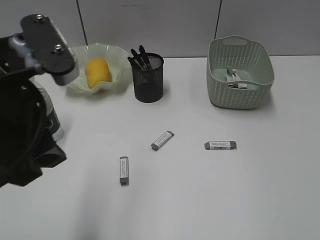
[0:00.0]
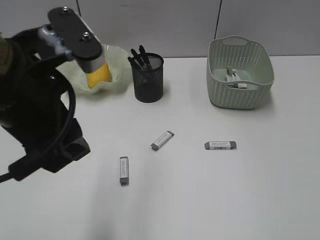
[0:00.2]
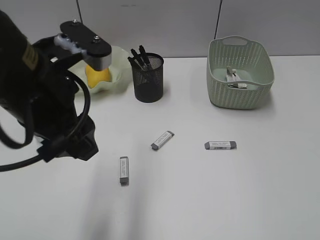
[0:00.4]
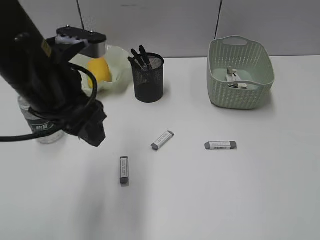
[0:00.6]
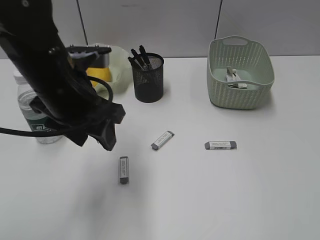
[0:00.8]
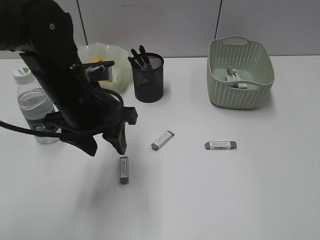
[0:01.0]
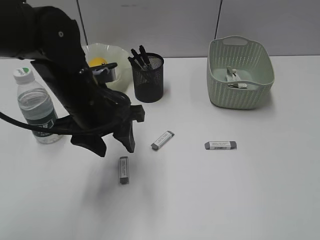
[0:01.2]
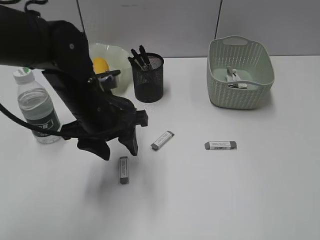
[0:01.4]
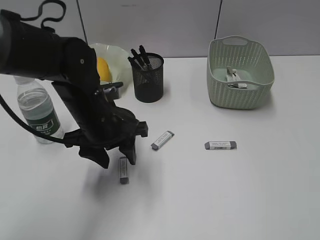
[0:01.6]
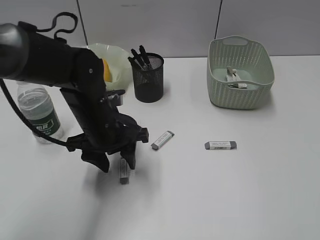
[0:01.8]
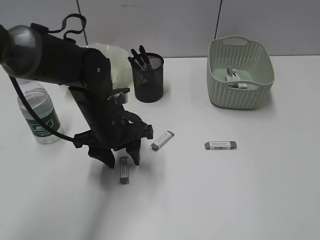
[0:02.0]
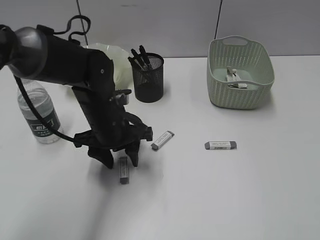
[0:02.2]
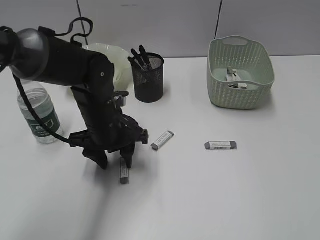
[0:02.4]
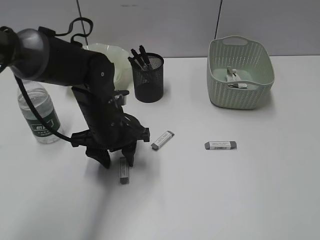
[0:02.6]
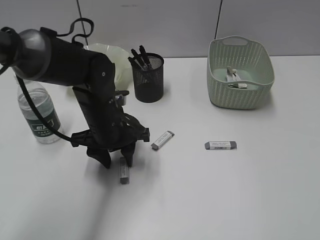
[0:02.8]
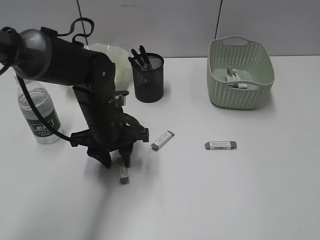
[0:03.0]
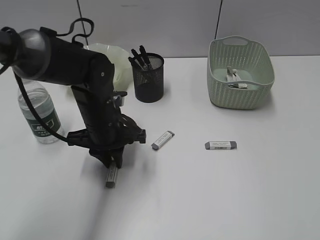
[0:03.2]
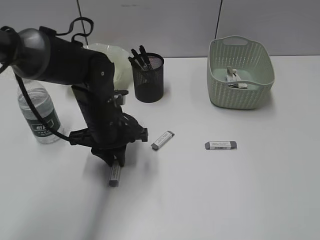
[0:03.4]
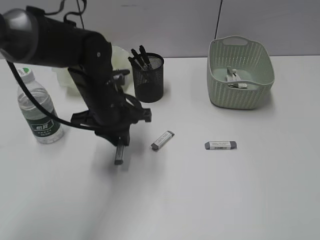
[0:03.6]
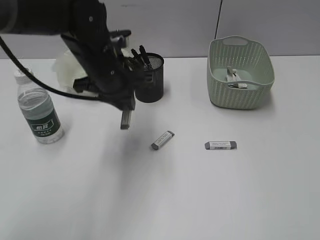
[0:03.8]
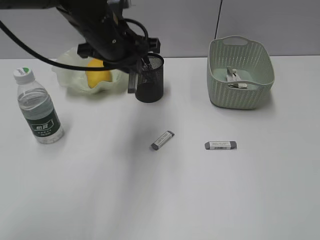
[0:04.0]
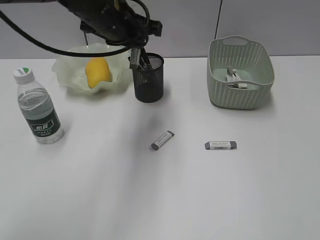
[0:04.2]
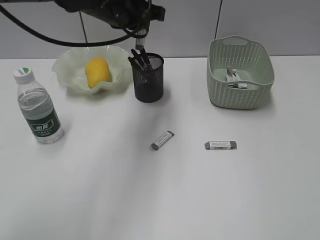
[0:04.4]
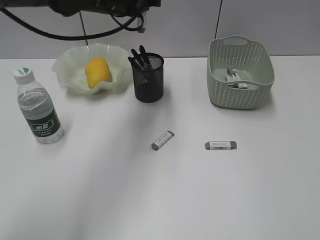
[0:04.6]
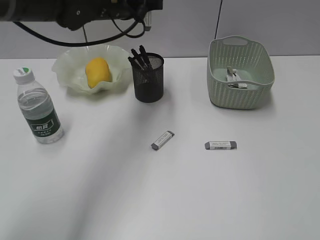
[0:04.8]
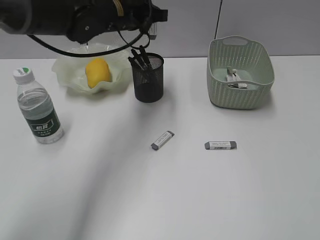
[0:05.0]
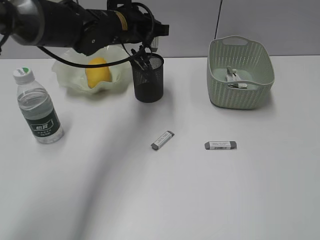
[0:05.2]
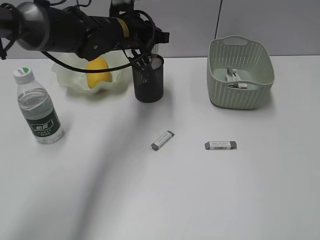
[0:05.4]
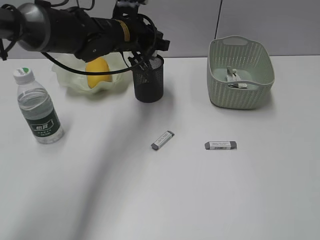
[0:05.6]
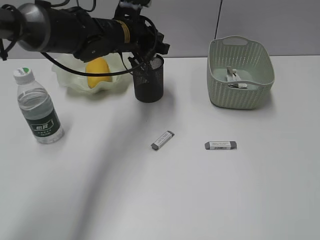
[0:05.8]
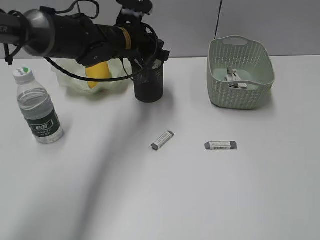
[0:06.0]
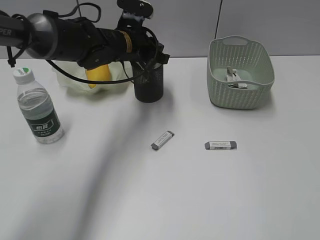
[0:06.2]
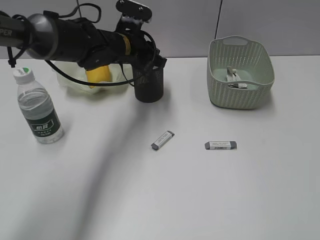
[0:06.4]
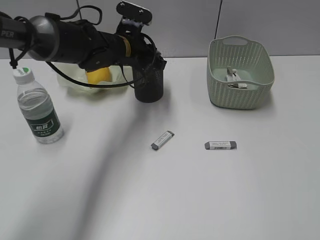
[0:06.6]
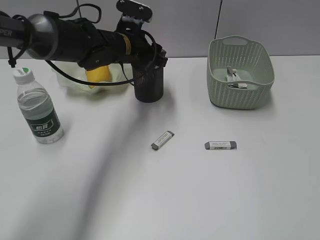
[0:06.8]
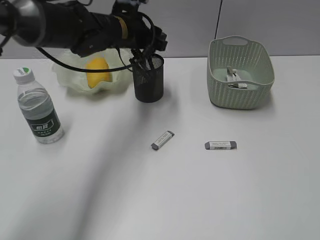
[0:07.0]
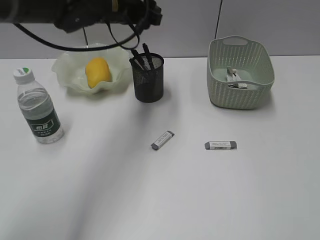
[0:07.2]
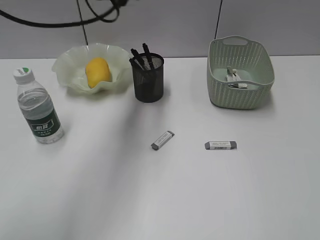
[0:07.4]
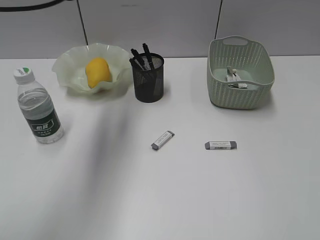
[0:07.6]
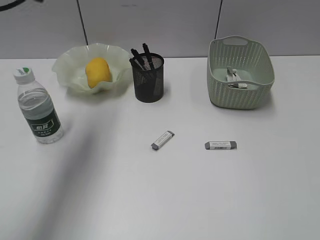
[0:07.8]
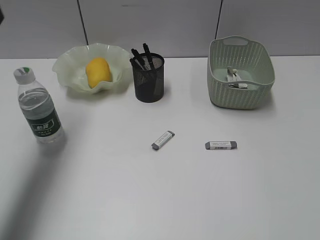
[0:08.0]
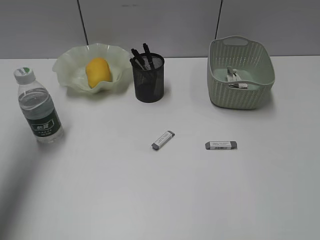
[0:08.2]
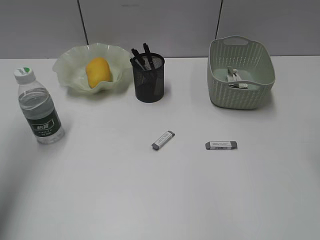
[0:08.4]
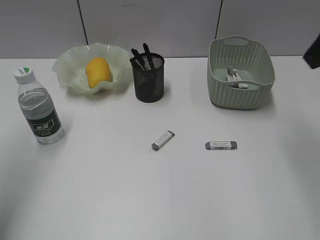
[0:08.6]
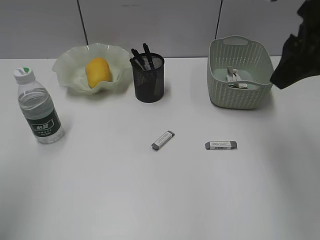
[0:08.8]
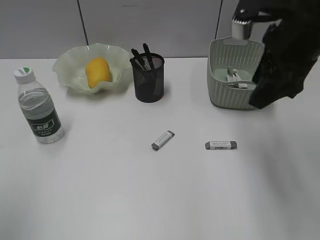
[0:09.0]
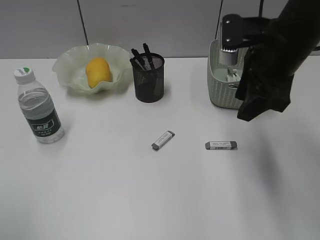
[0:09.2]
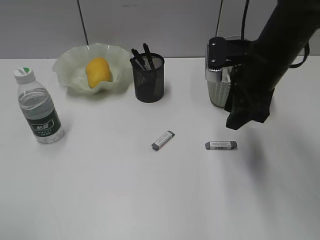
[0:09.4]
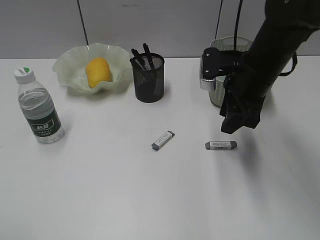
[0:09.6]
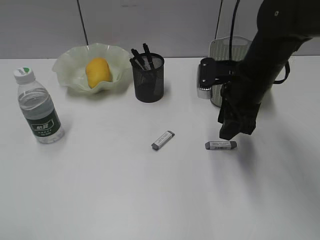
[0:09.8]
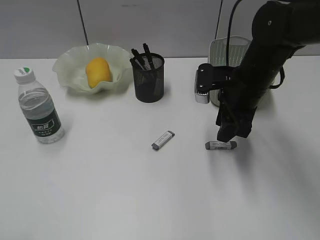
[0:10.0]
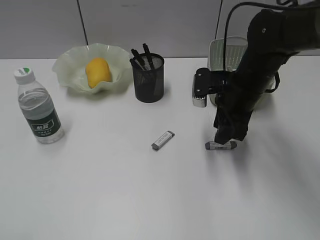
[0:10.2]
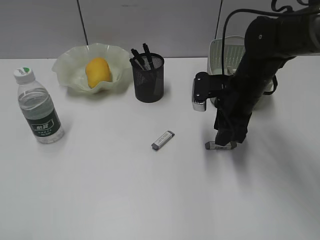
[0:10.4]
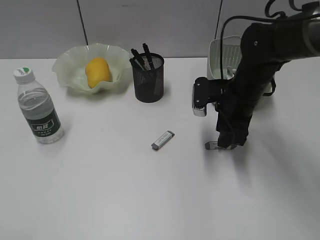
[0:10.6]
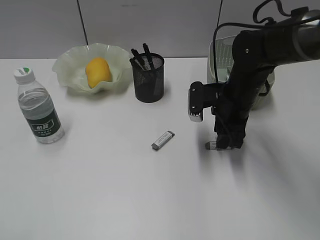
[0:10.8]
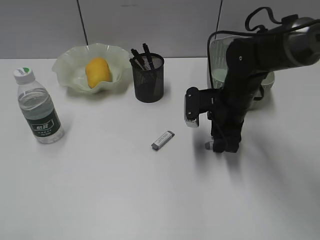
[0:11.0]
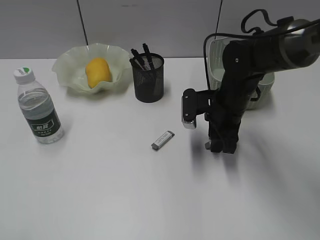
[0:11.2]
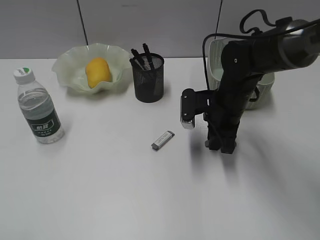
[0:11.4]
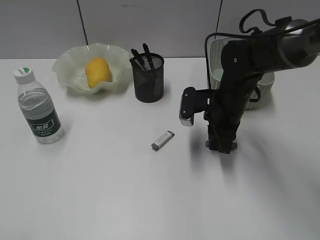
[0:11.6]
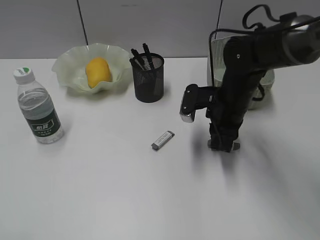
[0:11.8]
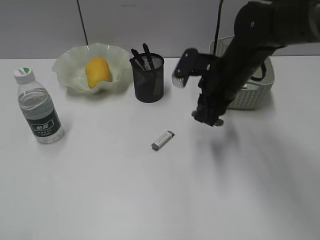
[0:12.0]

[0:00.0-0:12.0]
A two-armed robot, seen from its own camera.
Step, 0:00.0 to 0:03.2: Grasp the eraser with left gripper.
Step, 0:03.4 to 0:07.0: Place the eraser in pen holder with left gripper.
Step, 0:07.2 to 0:11.6: Grasp the eraser with right gripper.
0:00.0 to 0:01.6: The left gripper travels downward and forward by some 20 cm.
0:01.6 to 0:03.0: The grippers make only small movements.
0:03.0 to 0:04.4: The left gripper heads upward and forward, covering approximately 20 cm.
0:04.4 to 0:06.0: The left gripper heads downward, covering about 10 cm.
0:06.0 to 0:07.6: The left gripper moves upward and to the left, approximately 20 cm, and opens.
0:07.6 to 0:09.0: The left gripper goes approximately 30 cm backward and to the left; the right gripper is displaced forward and to the left by about 30 cm.
0:09.0 to 0:10.4: The right gripper is displaced downward by about 15 cm. The left gripper travels backward and downward by some 10 cm.
0:10.4 to 0:12.0: The right gripper moves roughly 5 cm, and closes.

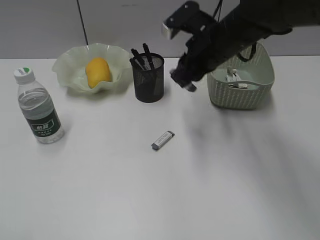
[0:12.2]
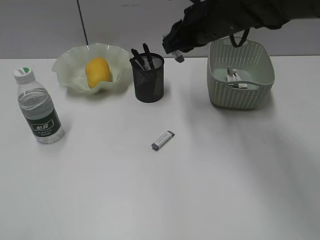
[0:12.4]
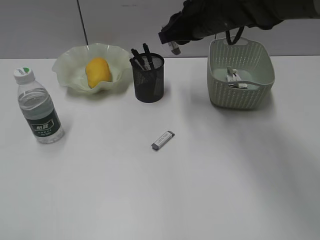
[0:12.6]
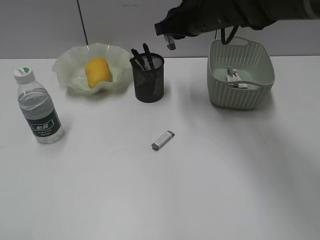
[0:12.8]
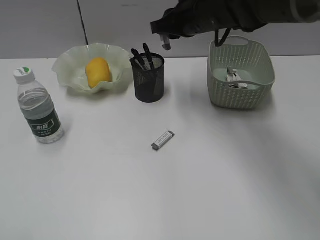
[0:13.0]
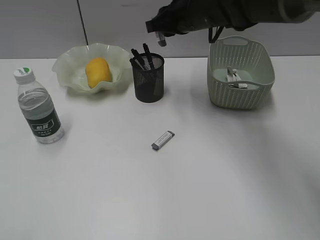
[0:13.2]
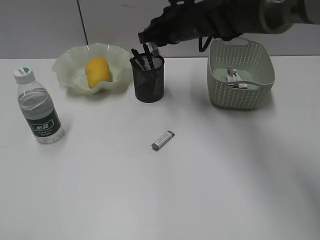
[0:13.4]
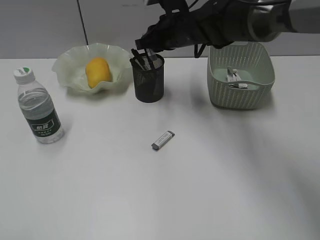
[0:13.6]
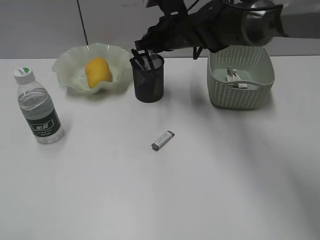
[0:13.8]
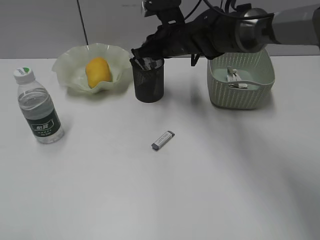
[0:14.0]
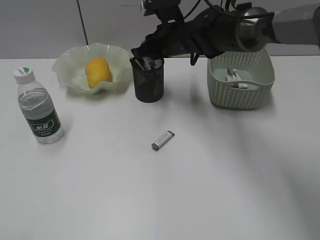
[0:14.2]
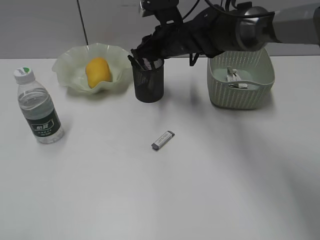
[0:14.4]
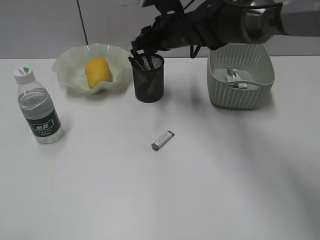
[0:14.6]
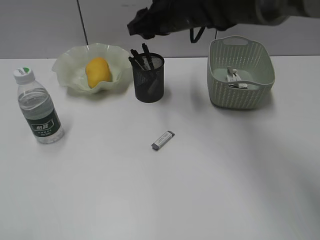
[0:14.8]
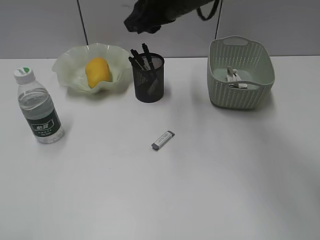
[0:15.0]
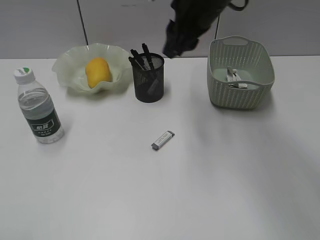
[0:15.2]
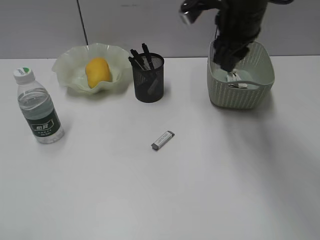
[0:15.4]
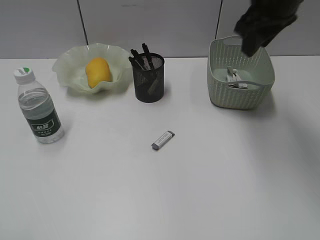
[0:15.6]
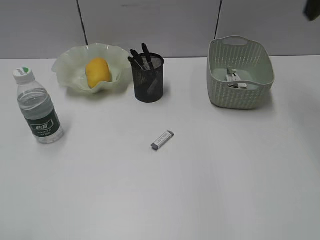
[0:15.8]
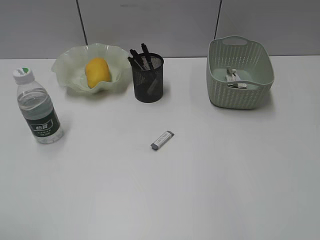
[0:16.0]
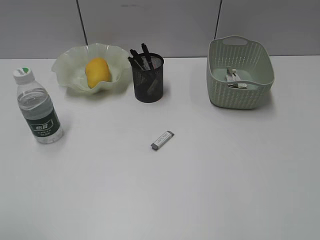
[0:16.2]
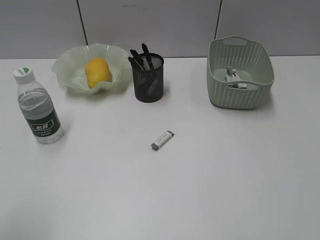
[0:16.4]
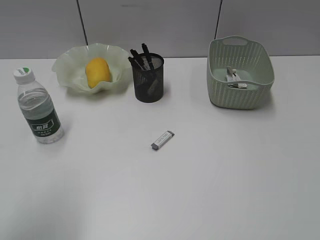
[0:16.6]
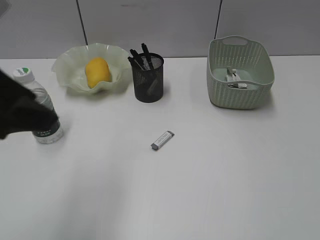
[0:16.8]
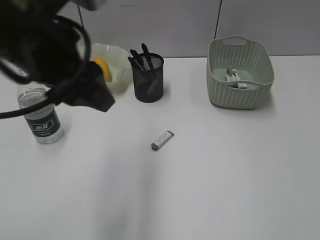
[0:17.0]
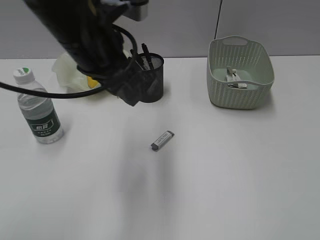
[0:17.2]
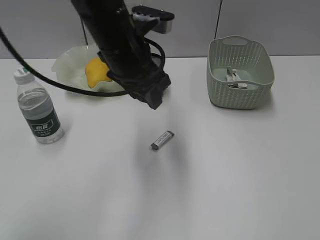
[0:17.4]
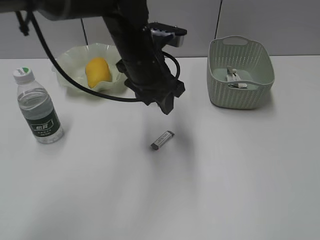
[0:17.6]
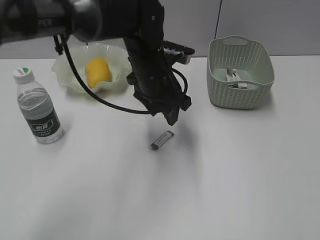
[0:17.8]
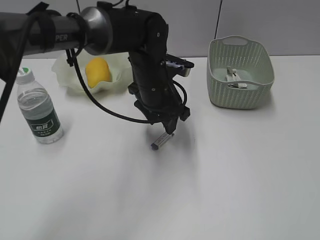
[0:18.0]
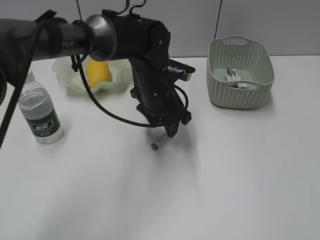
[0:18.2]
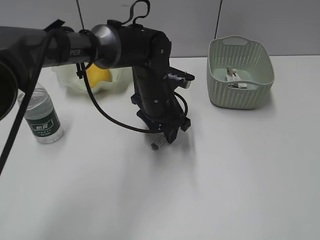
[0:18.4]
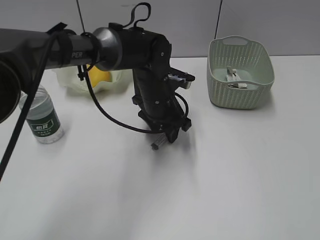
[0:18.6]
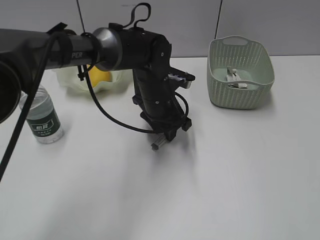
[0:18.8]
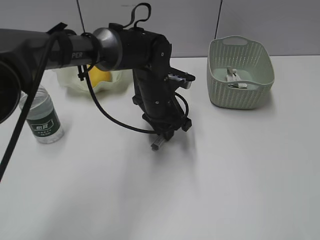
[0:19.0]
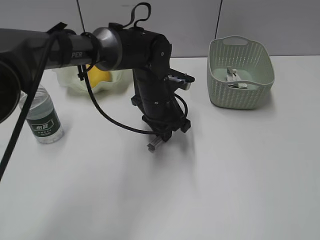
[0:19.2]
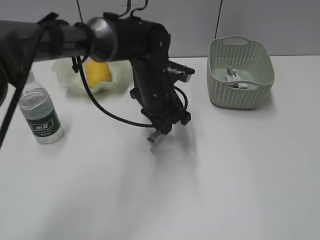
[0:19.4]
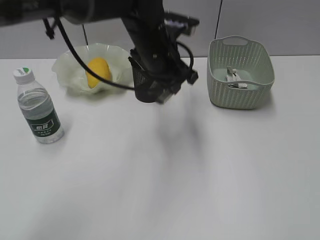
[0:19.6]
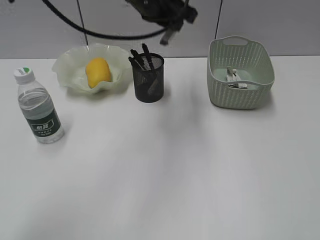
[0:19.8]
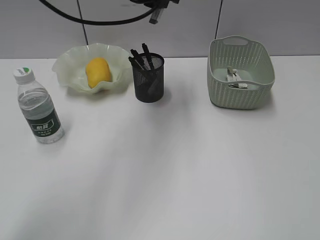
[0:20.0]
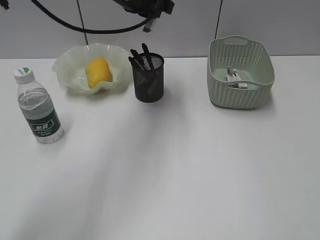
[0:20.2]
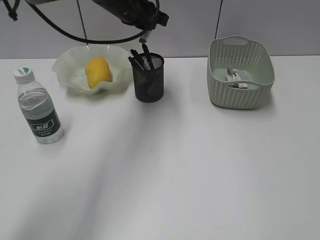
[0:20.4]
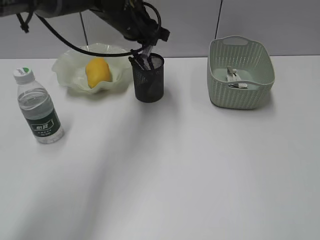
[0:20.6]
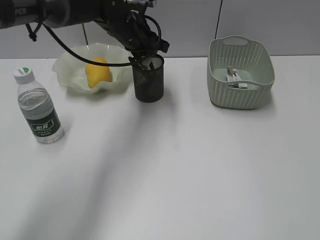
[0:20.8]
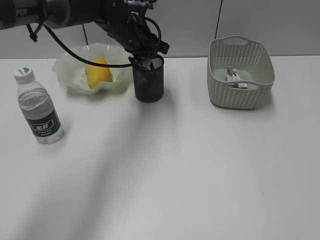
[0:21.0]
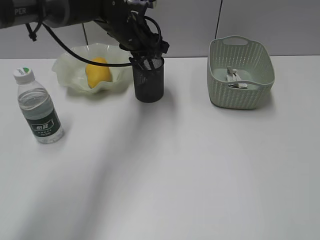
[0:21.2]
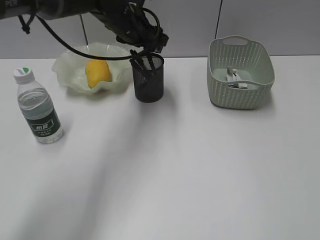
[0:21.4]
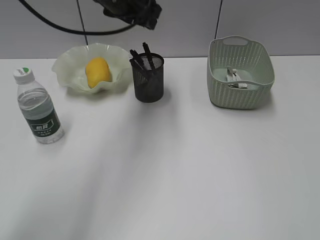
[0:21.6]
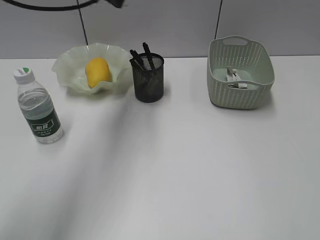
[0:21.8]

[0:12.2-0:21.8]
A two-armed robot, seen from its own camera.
Step, 0:12.2 to 0:14.4: Place the eraser in pen holder with right gripper.
Step, 0:14.6 to 0:19.0: Grasp the eraser with left gripper.
Step, 0:19.2 to 0:21.2: Place the eraser in pen holder with left gripper.
0:12.2 to 0:13.8: The right gripper moves forward and to the left, approximately 10 cm.
0:13.8 to 0:15.4: The right gripper travels upward, backward and to the right by approximately 15 cm.
0:15.4 to 0:17.0: The left gripper travels forward and to the right by approximately 30 cm, while the right gripper moves backward and to the right, approximately 35 cm, and opens.
0:17.0 to 0:18.6: The left gripper is displaced downward, forward and to the right by approximately 25 cm. Meanwhile the right gripper is displaced backward by roughly 5 cm.
0:18.6 to 0:20.2: The left gripper goes about 20 cm upward and forward, and closes its fingers.
0:20.2 to 0:21.8: The left gripper is displaced to the left and upward by about 10 cm, and opens its fingers.
